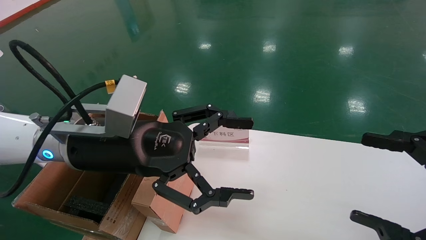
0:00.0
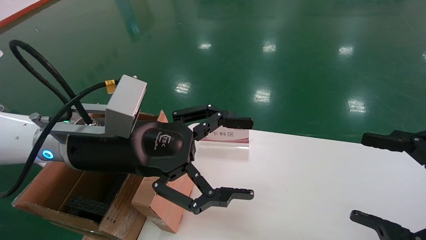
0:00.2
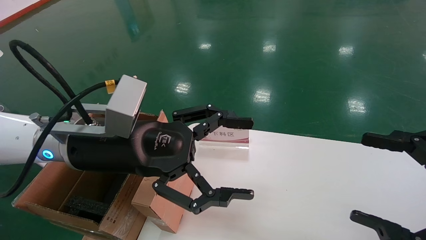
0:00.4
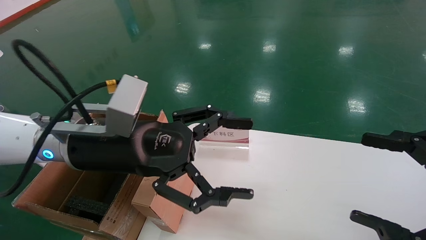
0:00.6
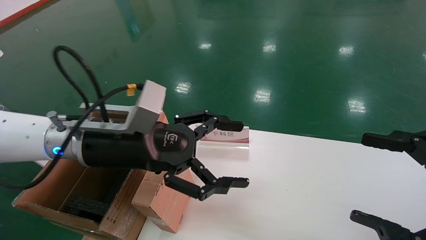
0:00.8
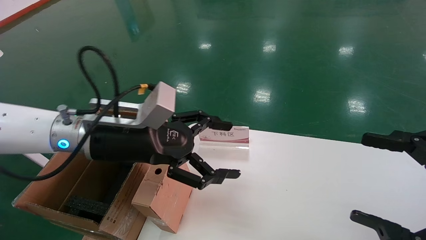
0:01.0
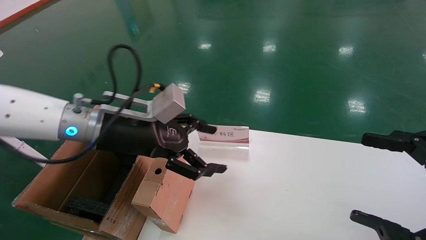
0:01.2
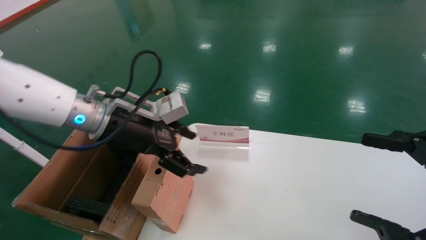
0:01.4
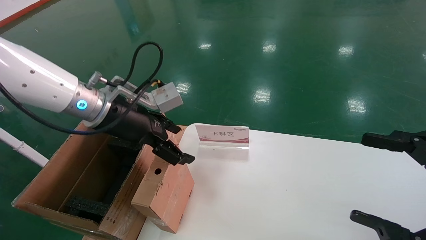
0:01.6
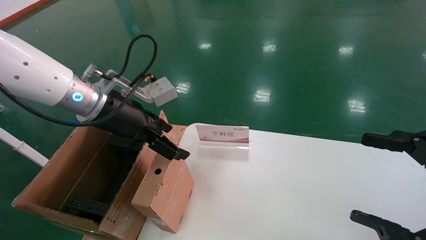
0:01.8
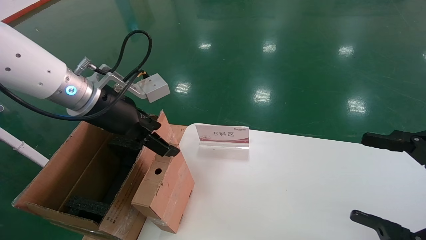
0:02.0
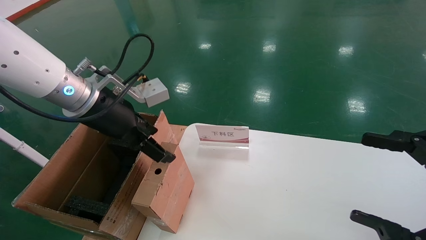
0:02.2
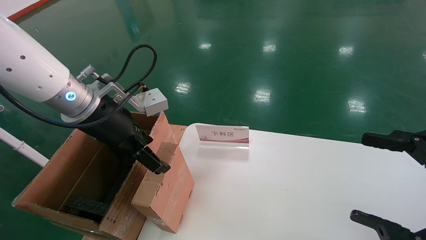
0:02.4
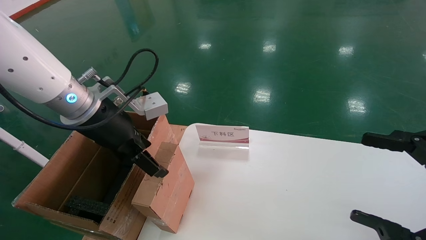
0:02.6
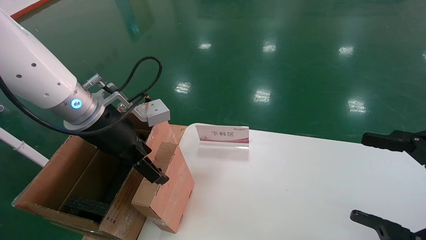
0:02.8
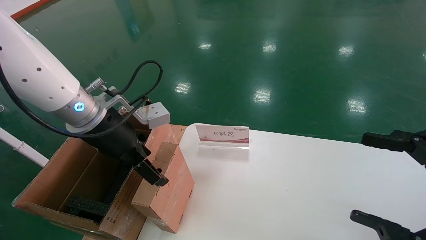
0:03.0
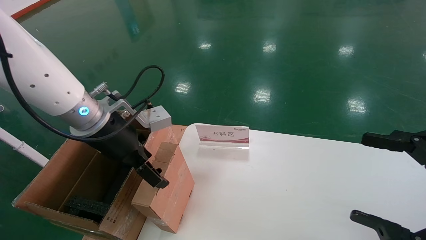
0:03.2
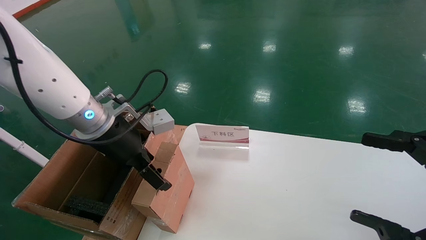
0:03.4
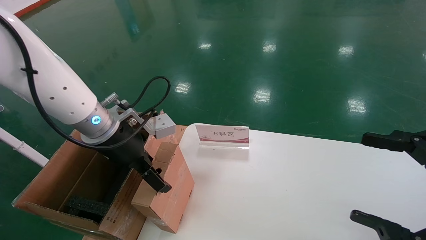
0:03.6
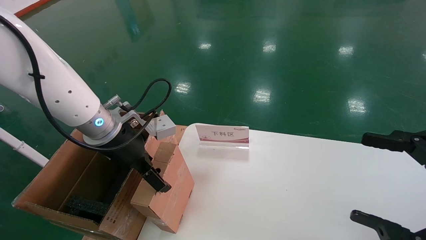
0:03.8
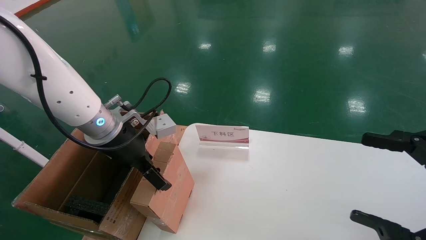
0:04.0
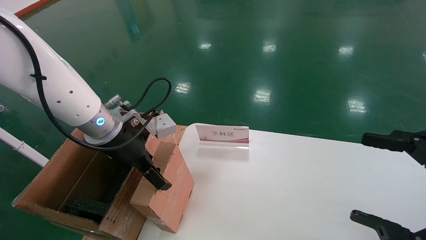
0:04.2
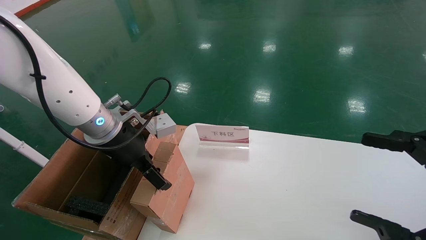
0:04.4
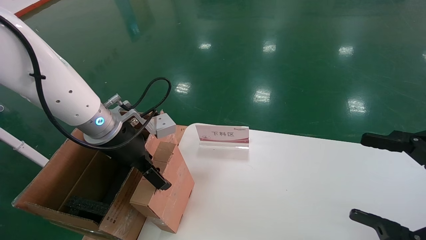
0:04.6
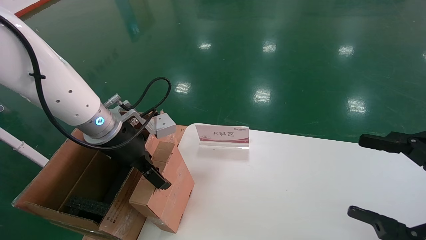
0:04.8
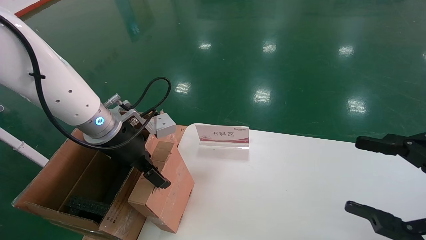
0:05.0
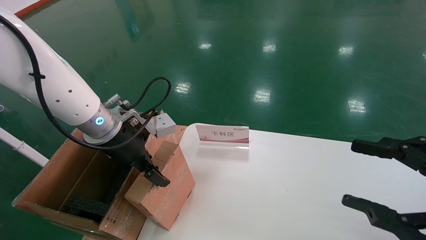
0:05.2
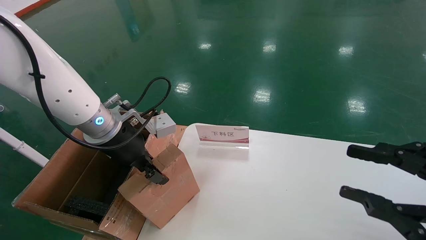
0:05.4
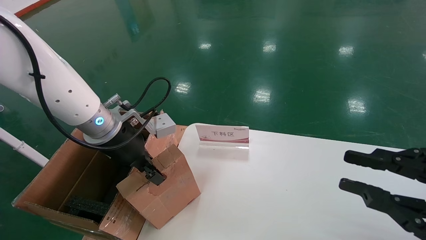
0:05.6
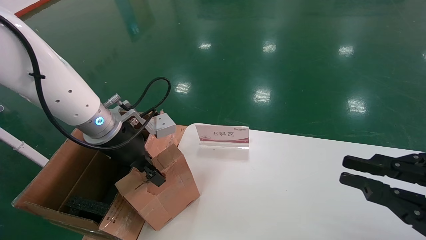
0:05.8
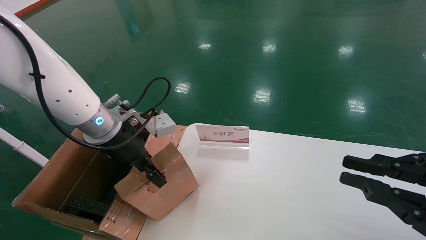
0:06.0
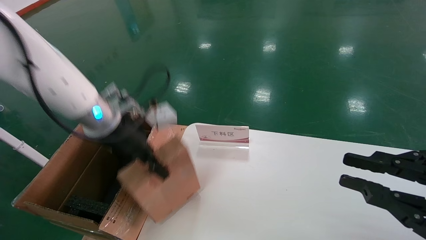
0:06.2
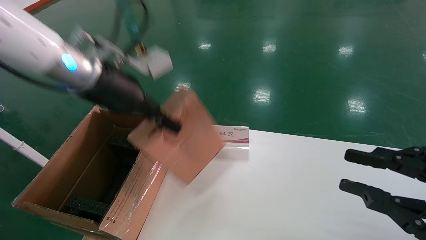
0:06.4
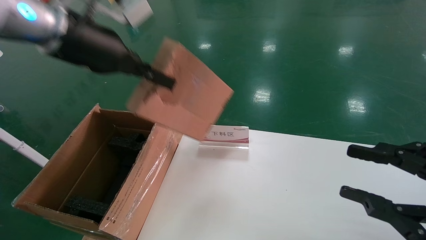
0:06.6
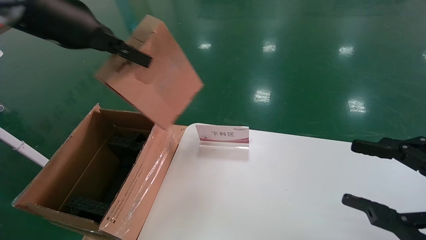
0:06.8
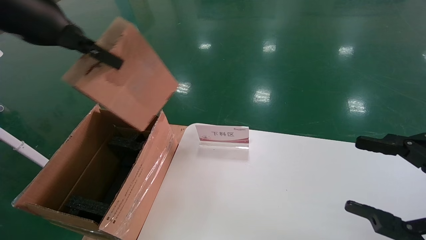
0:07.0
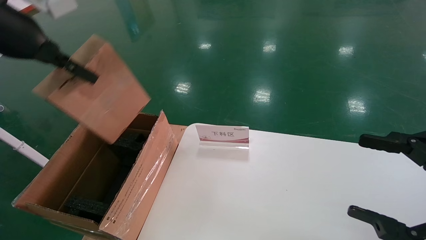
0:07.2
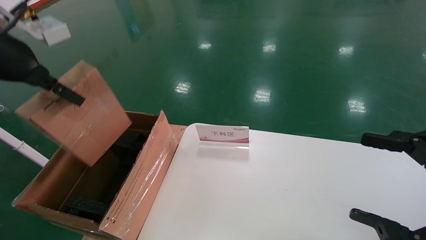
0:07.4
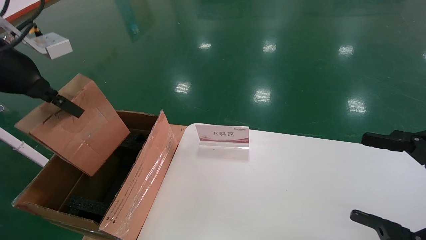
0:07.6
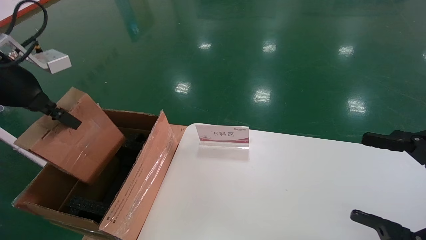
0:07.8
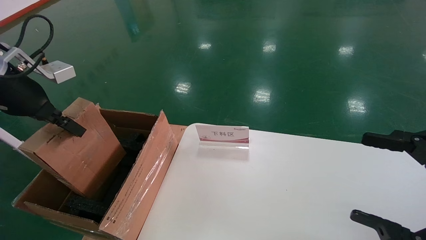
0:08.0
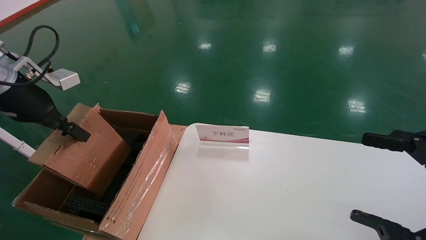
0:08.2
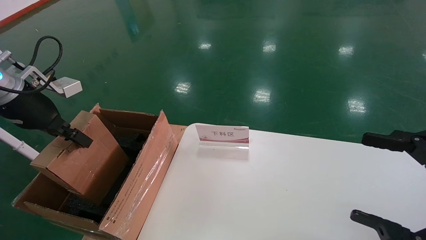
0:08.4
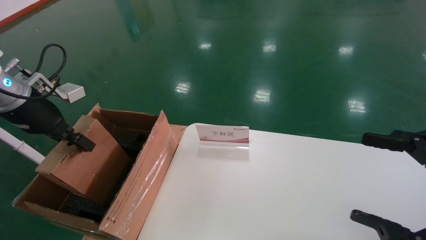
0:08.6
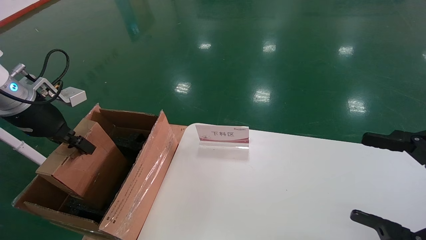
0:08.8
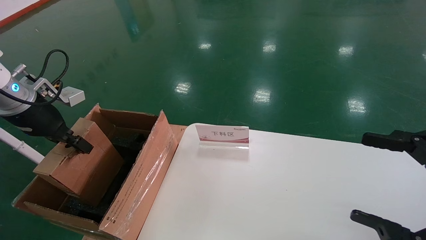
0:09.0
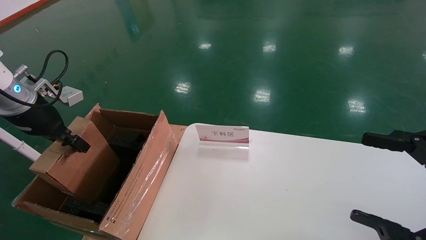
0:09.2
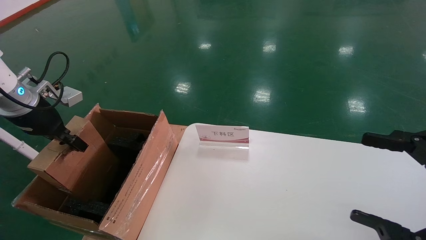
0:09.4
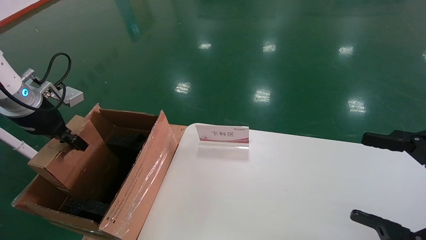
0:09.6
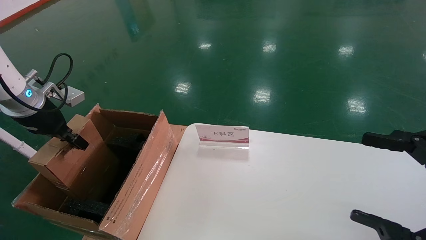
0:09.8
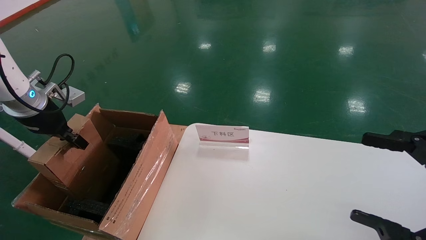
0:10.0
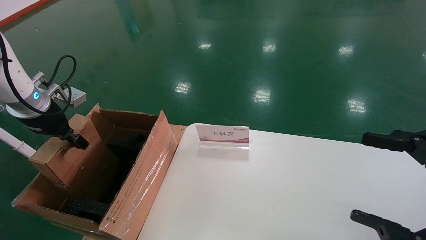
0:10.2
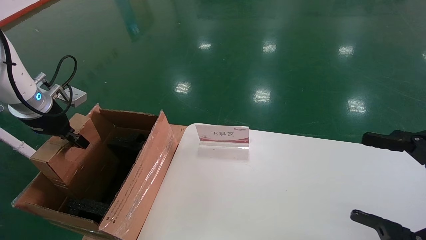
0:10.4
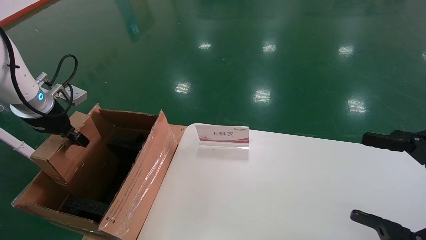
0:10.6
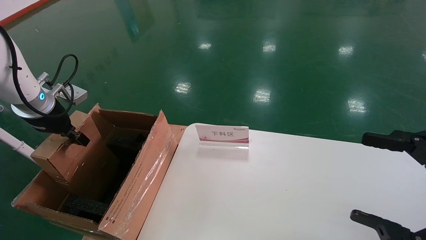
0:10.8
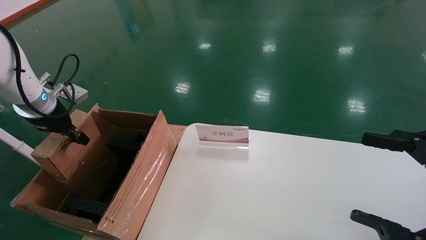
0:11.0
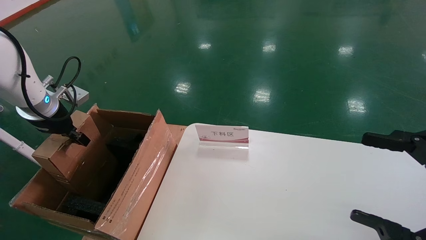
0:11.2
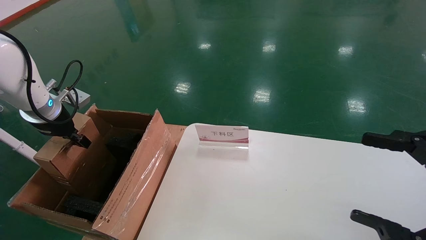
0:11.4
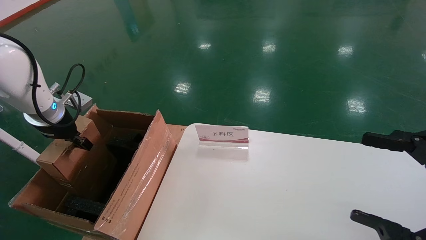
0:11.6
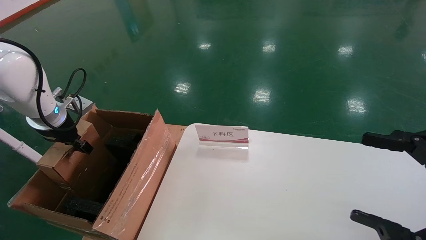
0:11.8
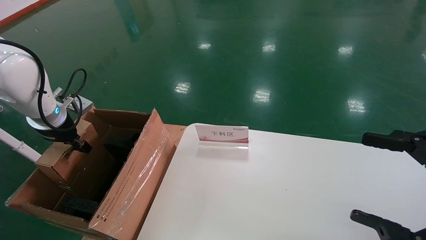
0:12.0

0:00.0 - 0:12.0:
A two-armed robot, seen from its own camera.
Task of the whole recording: pick up the small cardboard box and load it into the large cardboard box.
Step, 0:01.2 - 0:05.4: Pick up the mouse and power cord box.
0:00.0 - 0:01.6: The left gripper shifts some 5 cm forward.
0:03.0 - 0:04.4: There are only small adjustments of the grippers.
0:04.4 - 0:06.0: The left gripper closes its fingers; the right gripper closes.
0:06.0 - 0:07.6: The right gripper opens. Meanwhile the left gripper is displaced to the left and upward by about 20 cm.
0:07.6 - 0:09.0: The left gripper moves downward, roughly 10 cm.
0:09.0 - 0:10.4: The grippers make only small movements.
0:10.4 - 0:12.0: There are only small adjustments of the grippers.

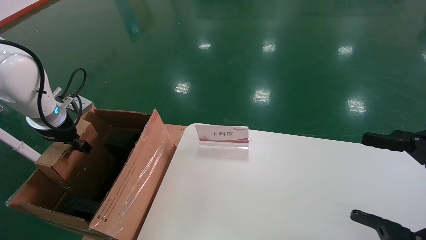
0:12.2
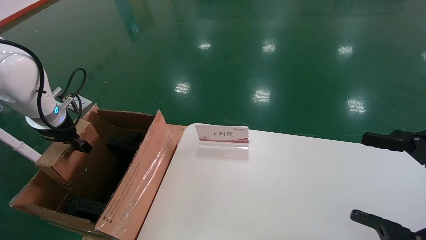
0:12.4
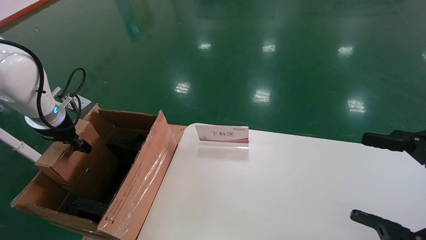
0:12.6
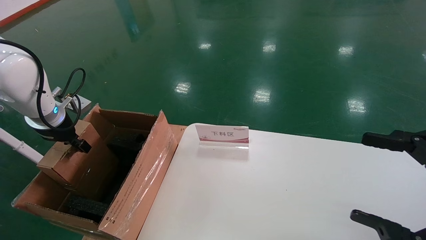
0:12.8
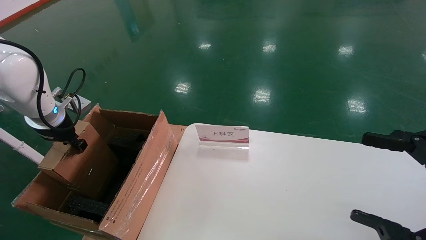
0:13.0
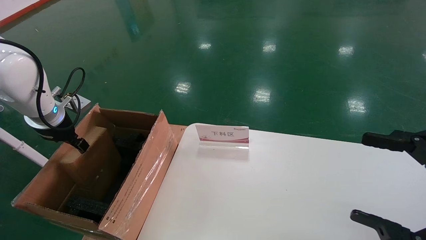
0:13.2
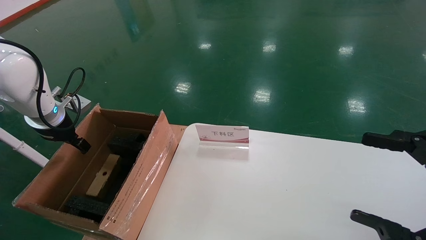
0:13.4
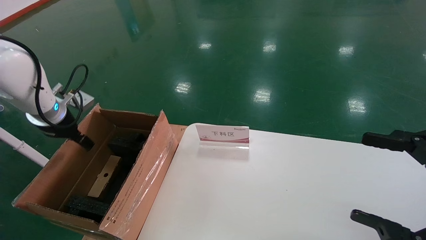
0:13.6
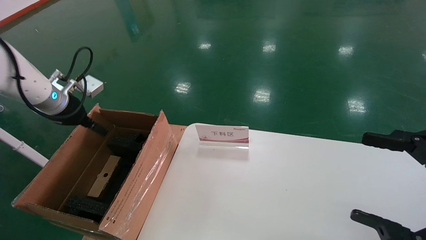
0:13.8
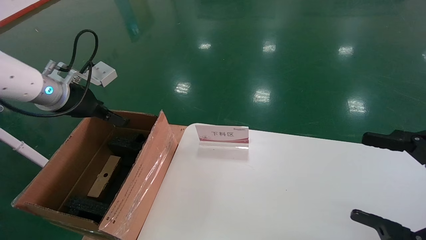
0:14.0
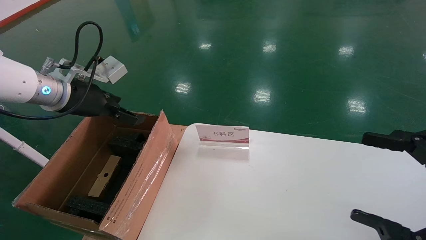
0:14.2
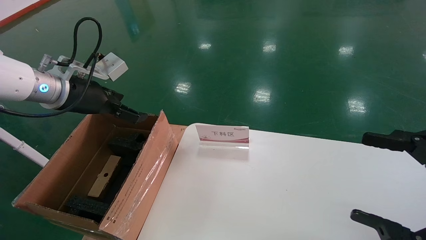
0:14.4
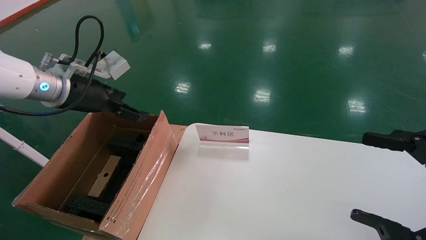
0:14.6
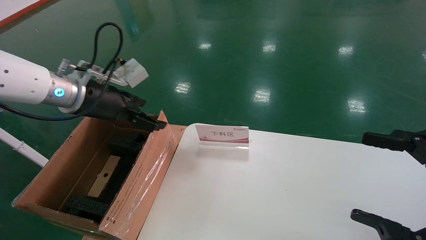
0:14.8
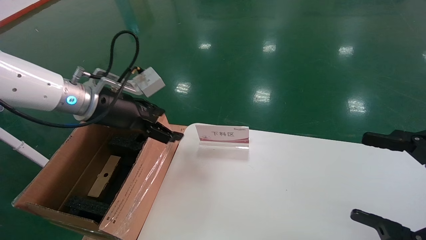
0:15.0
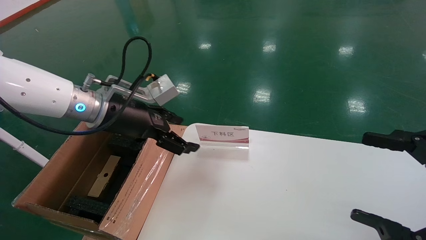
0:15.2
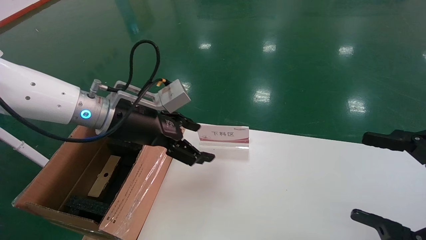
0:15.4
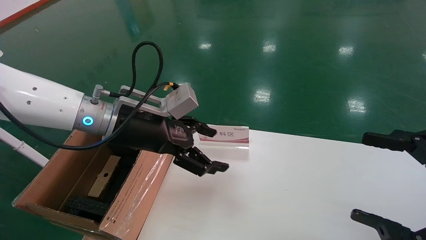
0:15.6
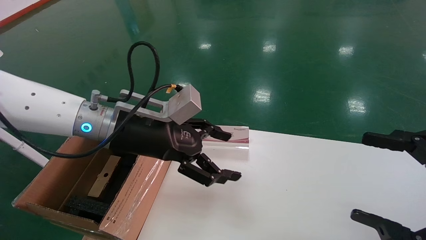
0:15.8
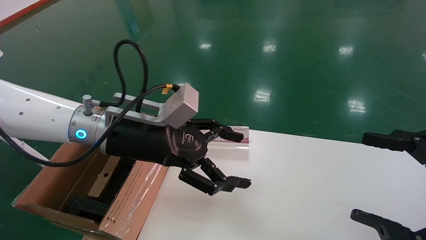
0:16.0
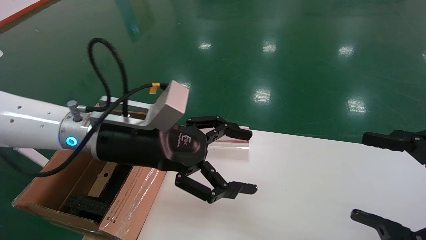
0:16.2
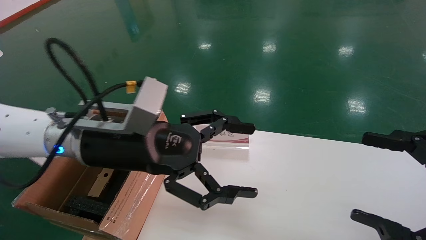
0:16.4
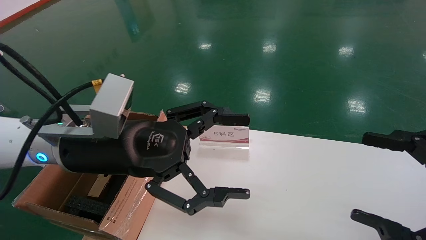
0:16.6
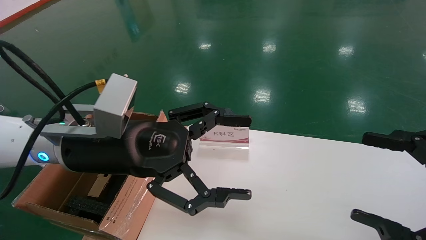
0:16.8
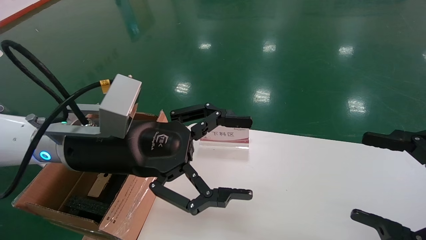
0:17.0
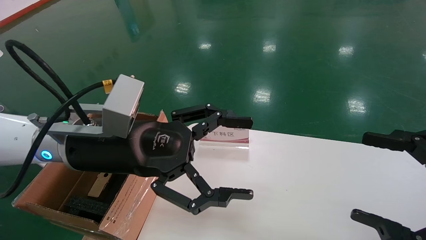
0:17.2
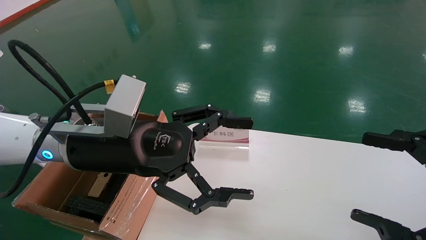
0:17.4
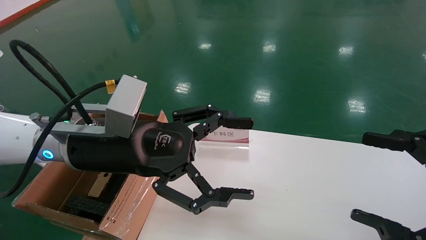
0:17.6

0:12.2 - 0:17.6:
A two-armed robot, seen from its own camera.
Task of the whole recording: pick up the small cardboard box and load it into the large cardboard box.
0:12.2 - 0:13.6: The left gripper opens its fingers.
0:13.6 - 0:15.0: The left gripper is displaced to the right by some 15 cm.
0:15.0 - 0:16.2: The left gripper goes some 10 cm to the right and backward.
0:16.2 - 0:17.6: The grippers make only small movements.
